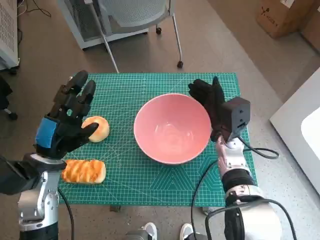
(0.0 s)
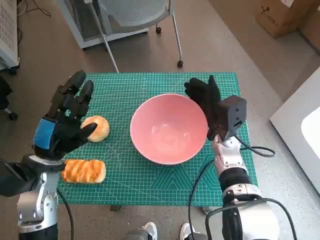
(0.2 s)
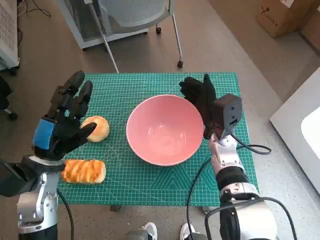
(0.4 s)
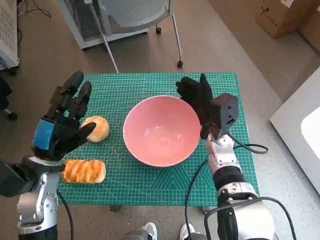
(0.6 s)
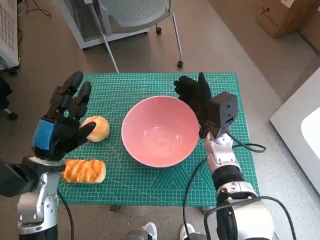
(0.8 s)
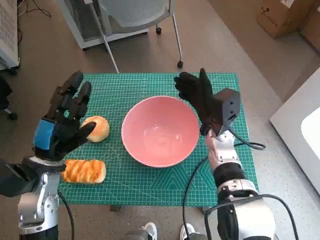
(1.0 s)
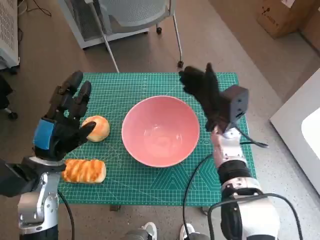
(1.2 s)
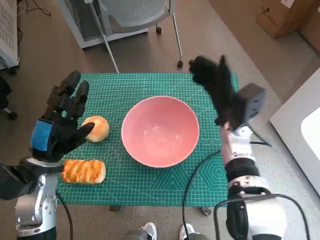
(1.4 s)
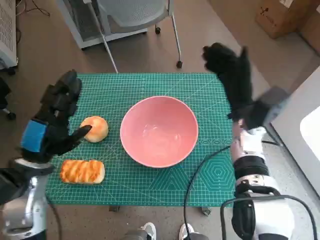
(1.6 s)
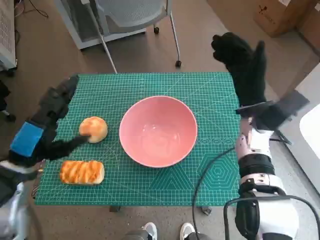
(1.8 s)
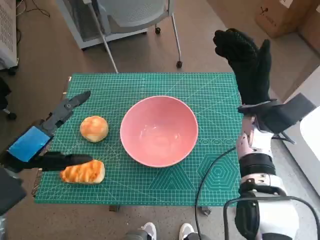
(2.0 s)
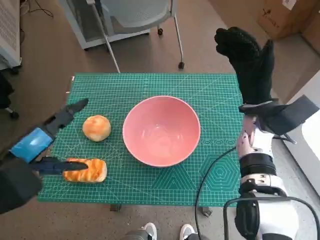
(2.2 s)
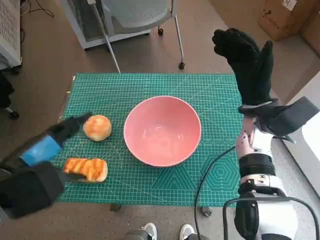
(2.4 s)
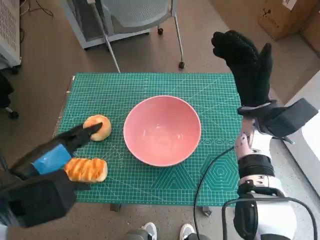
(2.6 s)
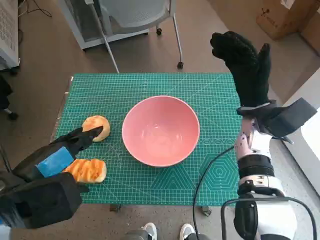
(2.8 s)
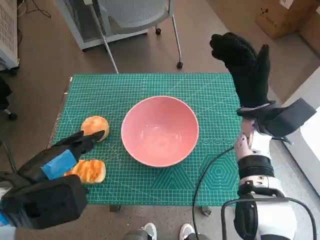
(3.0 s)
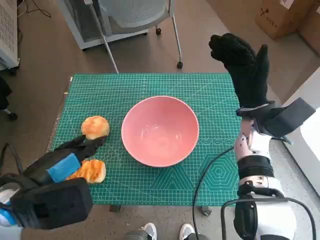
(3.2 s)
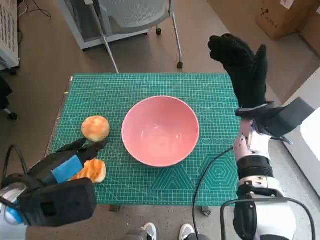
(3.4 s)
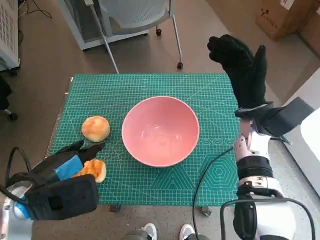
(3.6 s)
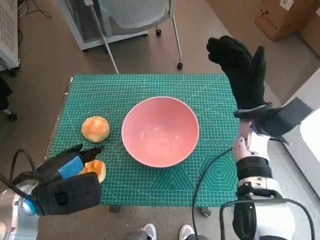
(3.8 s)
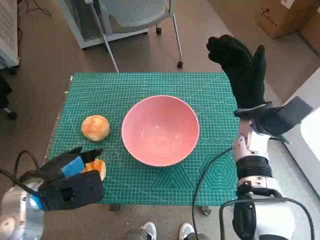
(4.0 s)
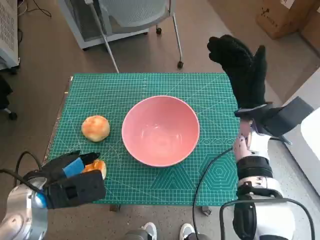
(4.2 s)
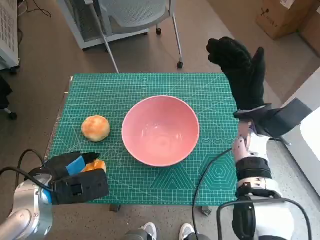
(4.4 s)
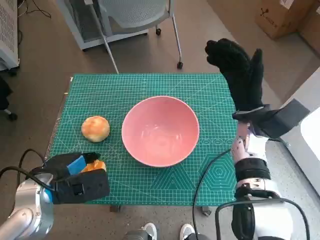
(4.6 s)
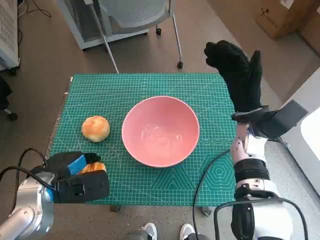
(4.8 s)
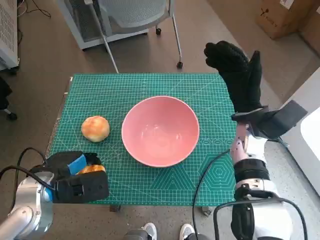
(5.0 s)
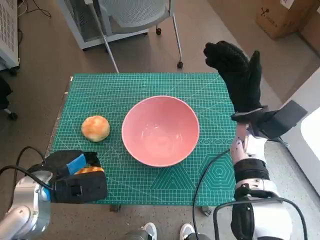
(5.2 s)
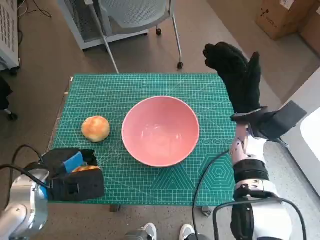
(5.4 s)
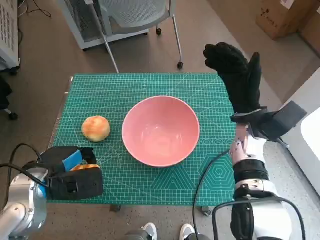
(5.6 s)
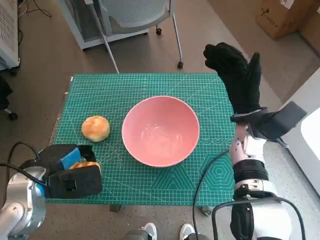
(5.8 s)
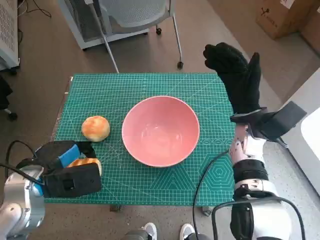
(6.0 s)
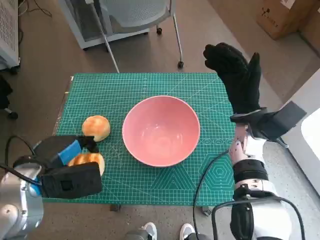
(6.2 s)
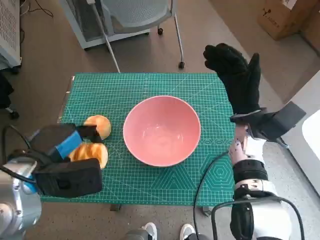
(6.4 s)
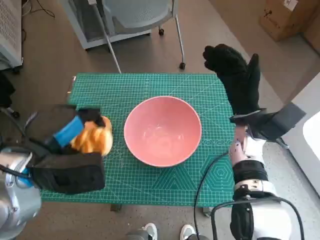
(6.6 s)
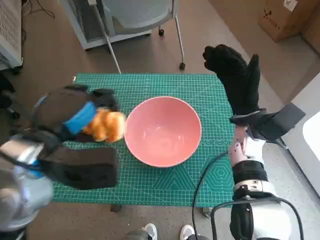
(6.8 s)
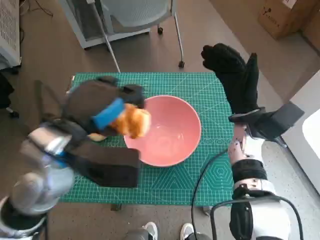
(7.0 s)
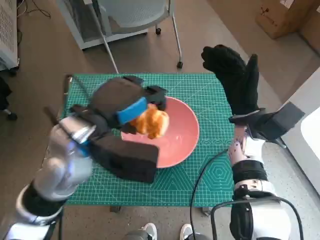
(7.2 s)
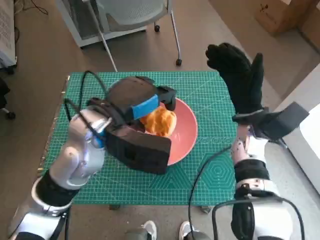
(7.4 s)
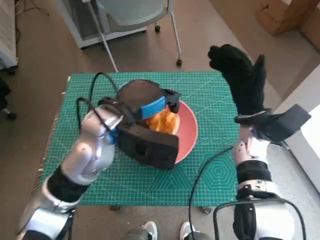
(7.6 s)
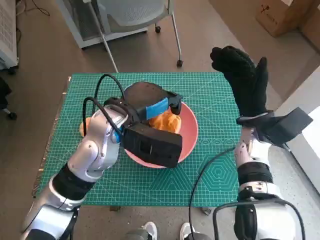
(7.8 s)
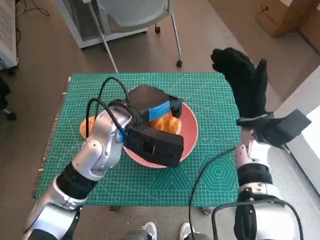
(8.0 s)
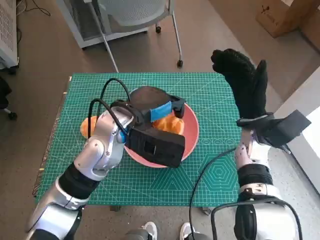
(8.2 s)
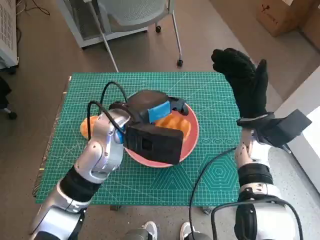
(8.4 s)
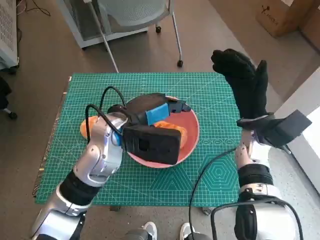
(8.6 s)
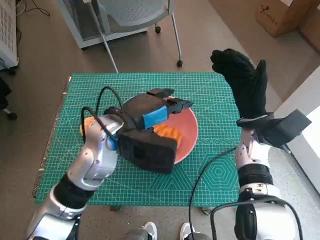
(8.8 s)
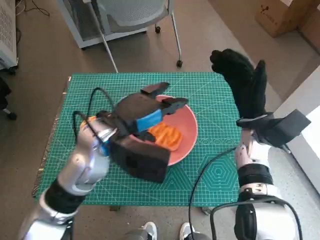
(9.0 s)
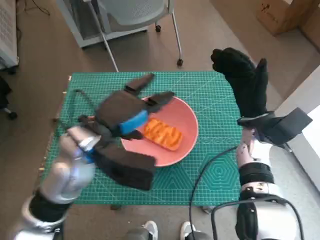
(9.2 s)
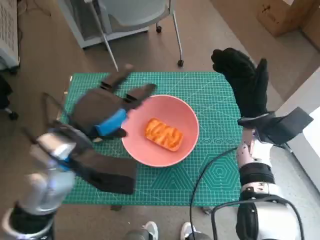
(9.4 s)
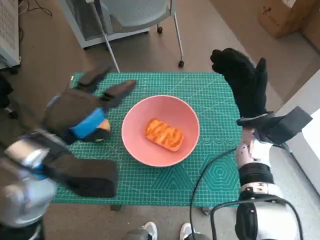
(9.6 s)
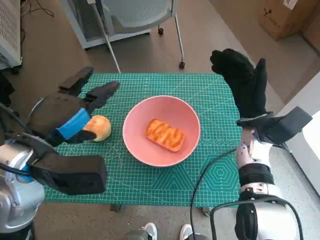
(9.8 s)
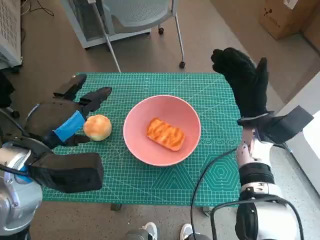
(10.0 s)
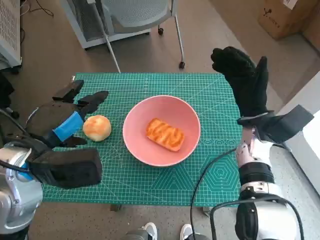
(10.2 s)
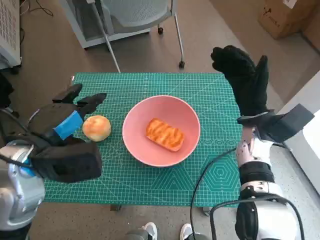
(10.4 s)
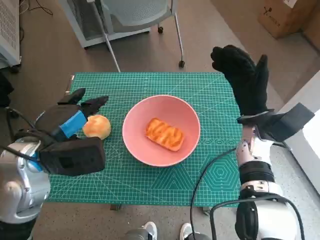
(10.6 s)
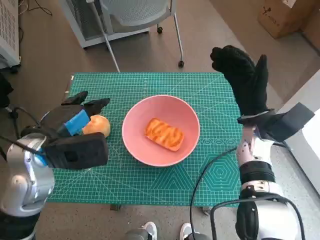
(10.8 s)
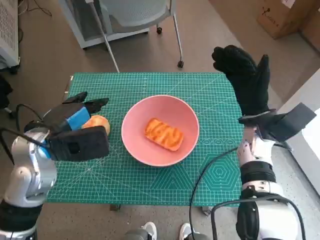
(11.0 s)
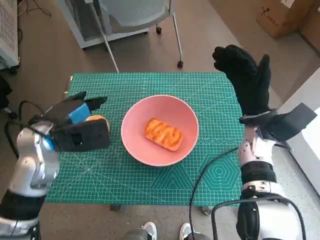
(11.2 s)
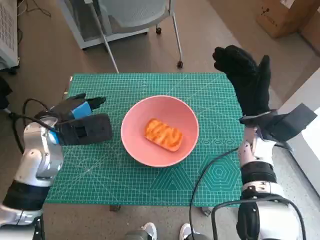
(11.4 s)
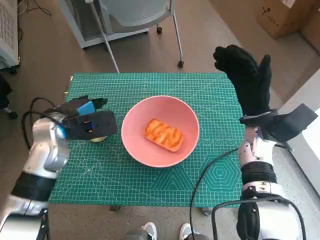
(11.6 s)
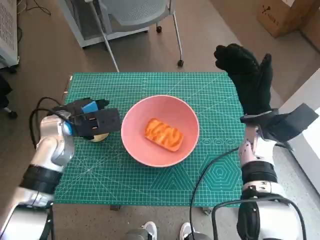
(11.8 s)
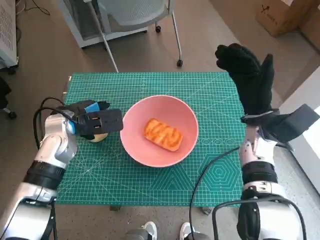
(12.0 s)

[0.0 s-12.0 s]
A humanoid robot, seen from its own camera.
Step, 1.2 to 5.0 s: Grasp the long bread with left hand.
Step, 5.2 to 8.6 s: Place the long bread in pink bowl with left hand.
0.0 to 1.6 s: The right hand heads upward, covering roughly 5 cm.
1.6 to 3.0 s: The left hand goes some 10 cm upward and backward.
3.0 to 4.4 s: The left hand goes about 10 cm downward.
4.4 to 6.0 s: The hands move only a little.
6.0 to 7.6 s: The left hand is displaced to the right, forward and upward by some 20 cm.
7.6 to 9.0 s: There are only small adjustments of the hands.
9.0 to 10.4 s: The left hand moves to the left and backward, about 10 cm.
10.4 to 12.0 s: The left hand moves forward and downward, some 15 cm.

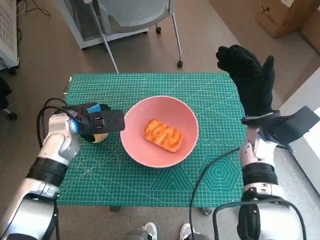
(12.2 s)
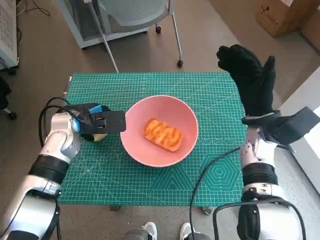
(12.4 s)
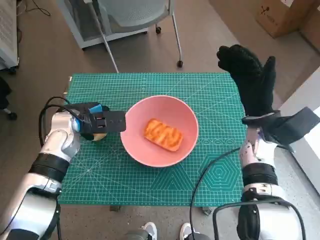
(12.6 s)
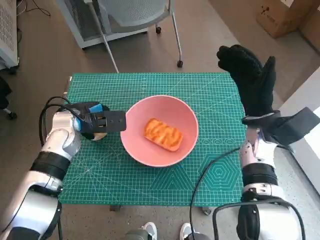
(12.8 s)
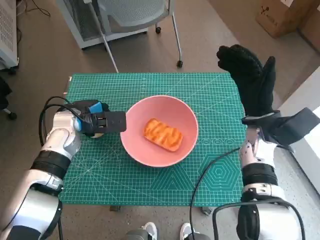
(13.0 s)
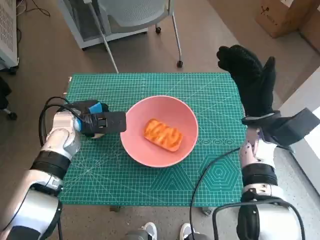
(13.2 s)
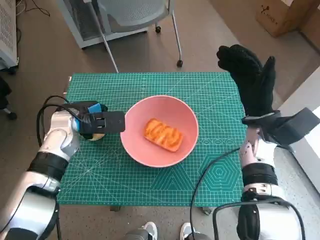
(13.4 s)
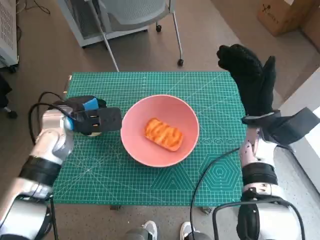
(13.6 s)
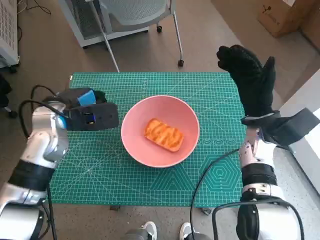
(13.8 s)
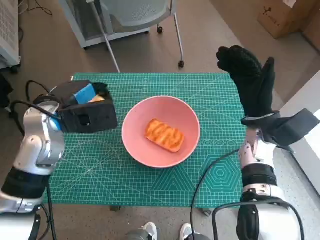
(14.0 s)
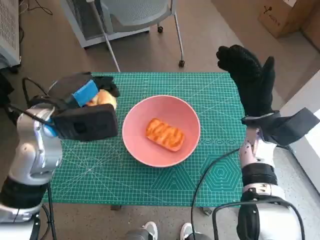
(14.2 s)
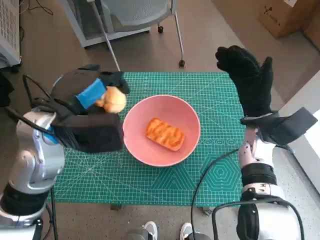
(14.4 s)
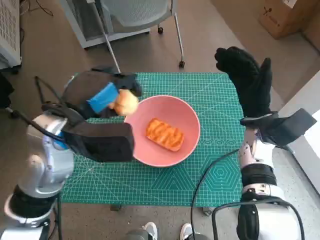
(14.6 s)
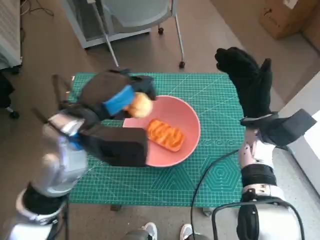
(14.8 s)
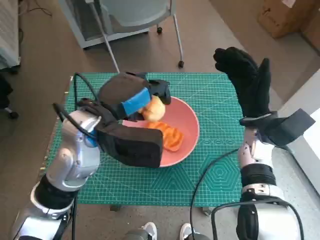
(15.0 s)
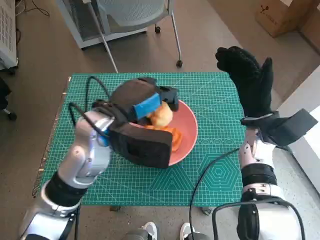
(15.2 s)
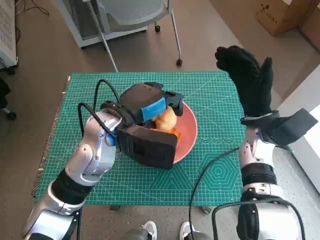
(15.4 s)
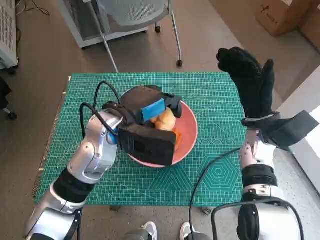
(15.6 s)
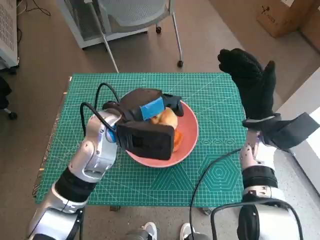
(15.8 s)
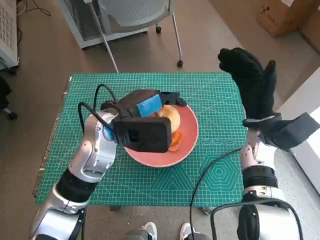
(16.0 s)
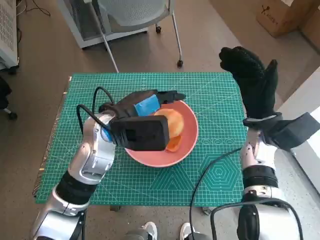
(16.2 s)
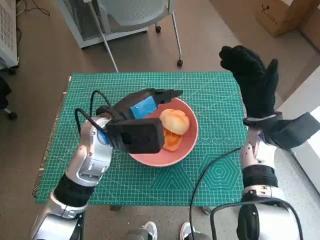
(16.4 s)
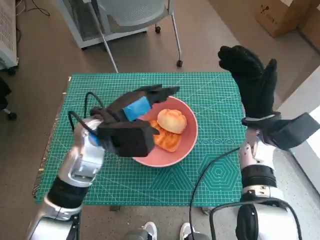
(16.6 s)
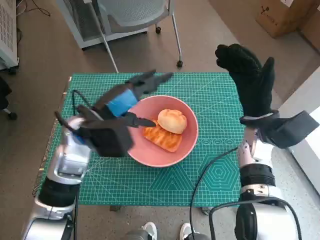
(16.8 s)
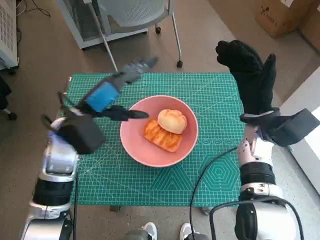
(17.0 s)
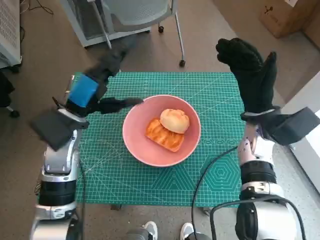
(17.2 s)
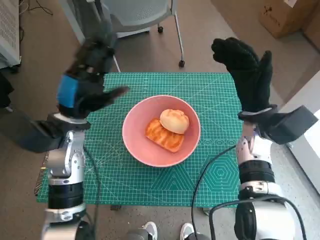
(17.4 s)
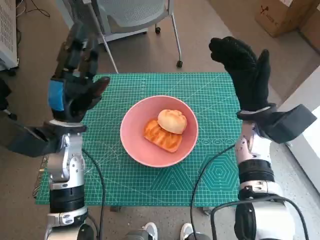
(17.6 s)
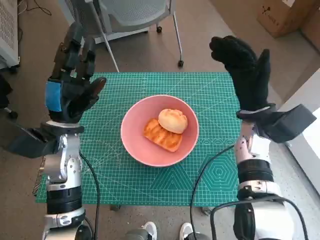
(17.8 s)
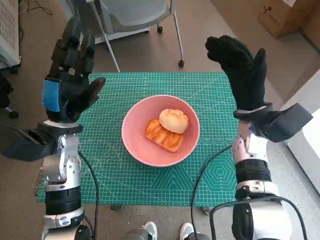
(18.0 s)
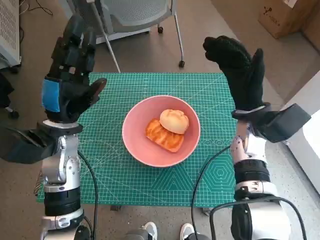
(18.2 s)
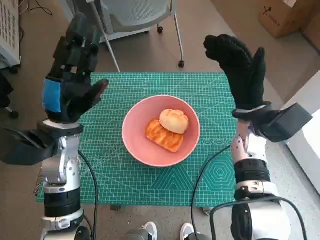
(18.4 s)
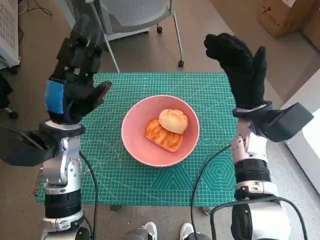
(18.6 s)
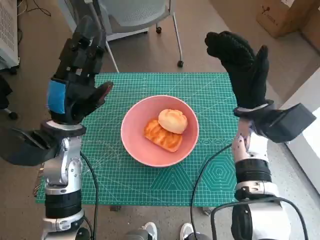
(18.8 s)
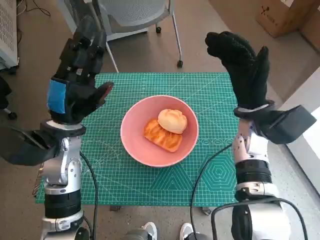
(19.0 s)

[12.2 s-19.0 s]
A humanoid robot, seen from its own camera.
Step, 12.6 to 16.2 s: Place the round bread in pink bowl with left hand.
12.2 to 13.6 s: There are only small adjustments of the hands.
13.6 to 15.0 s: The left hand shifts approximately 15 cm to the right, upward and backward.
16.2 to 17.6 s: The left hand heads to the left, covering approximately 10 cm.
17.6 to 19.0 s: The hands make only small movements.

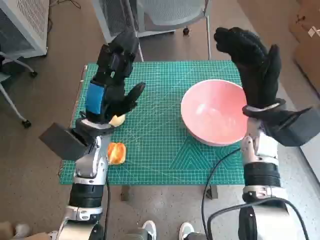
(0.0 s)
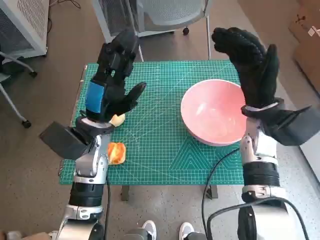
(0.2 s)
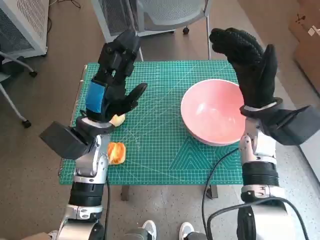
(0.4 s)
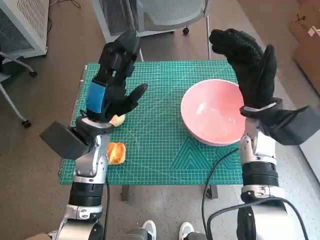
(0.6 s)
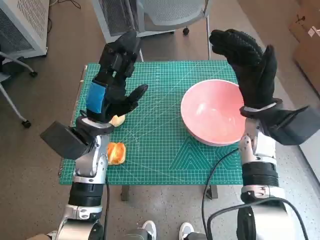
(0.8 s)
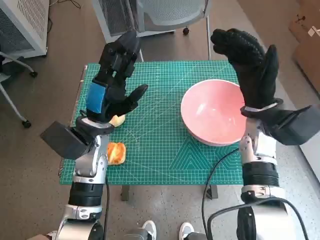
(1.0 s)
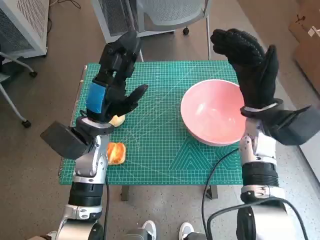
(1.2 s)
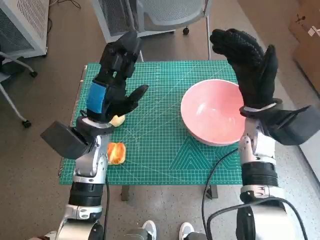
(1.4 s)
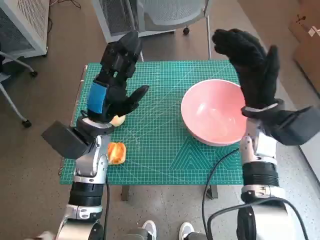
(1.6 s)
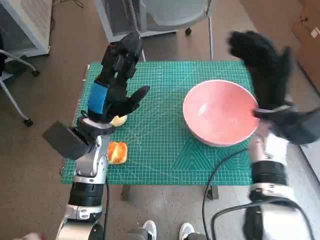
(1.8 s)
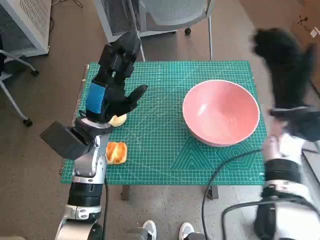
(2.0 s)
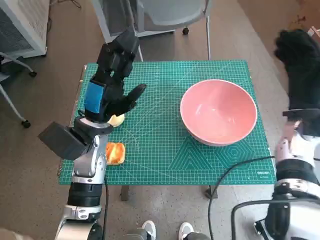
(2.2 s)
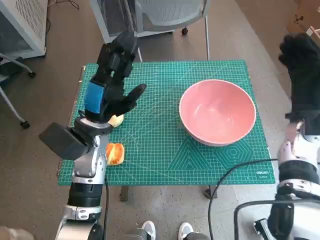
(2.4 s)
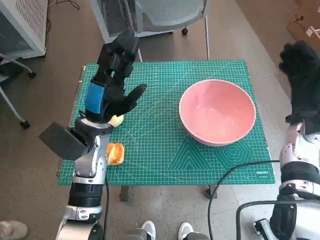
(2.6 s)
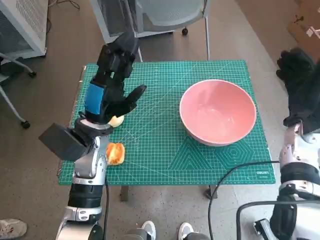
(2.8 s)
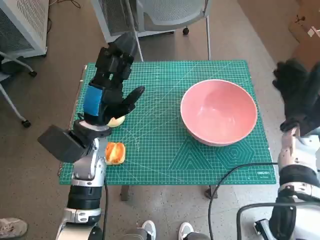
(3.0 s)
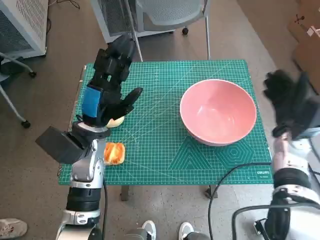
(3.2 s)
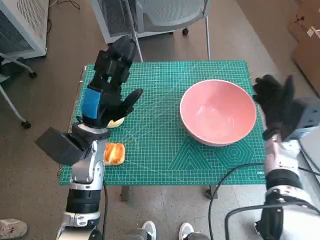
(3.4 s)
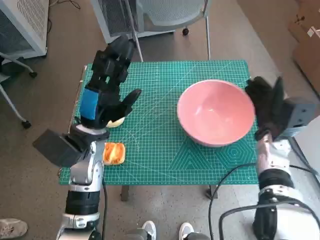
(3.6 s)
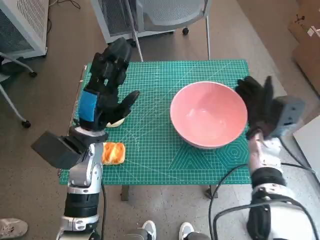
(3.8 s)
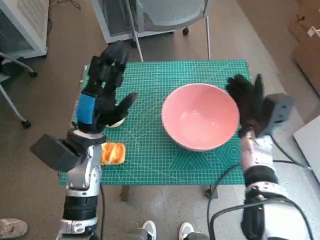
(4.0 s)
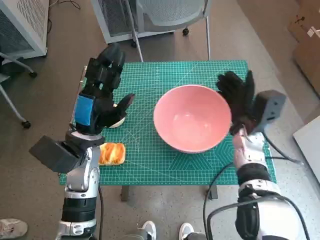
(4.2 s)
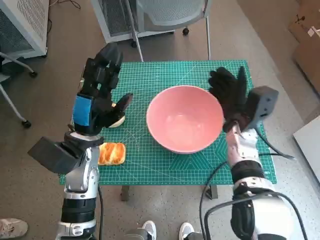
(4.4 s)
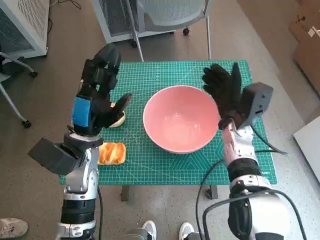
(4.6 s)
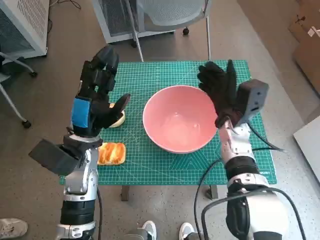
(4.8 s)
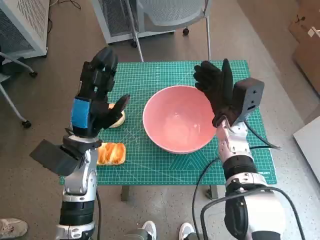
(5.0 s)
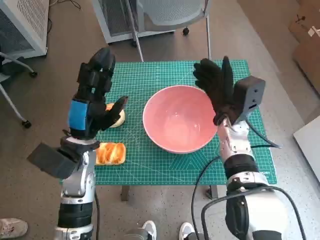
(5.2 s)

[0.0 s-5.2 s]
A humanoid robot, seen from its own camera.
Step, 0.0 to 4.6 s: Move the pink bowl to the center of table with right hand.
1.8 to 3.4 s: The right hand travels downward by about 5 cm.
3.4 to 5.2 s: The right hand is displaced to the left by some 10 cm.
